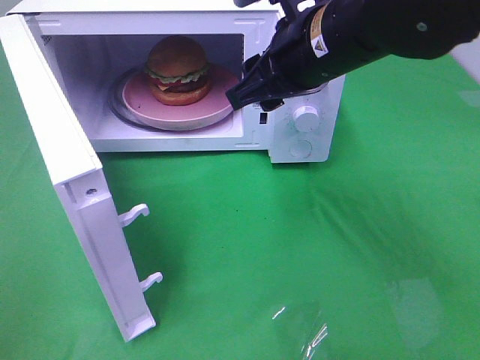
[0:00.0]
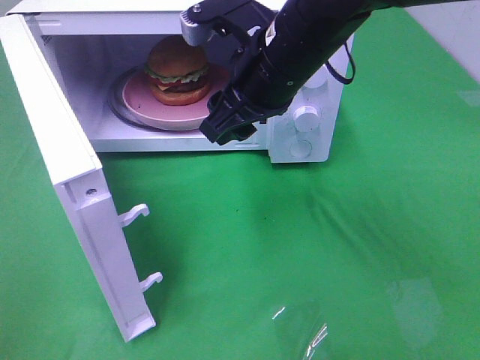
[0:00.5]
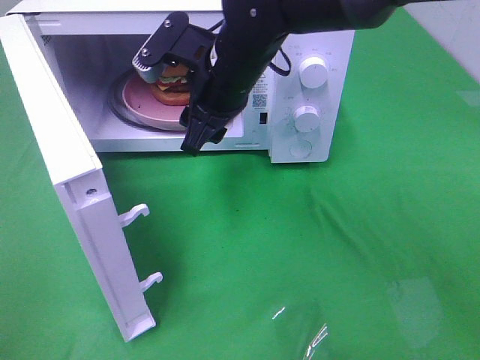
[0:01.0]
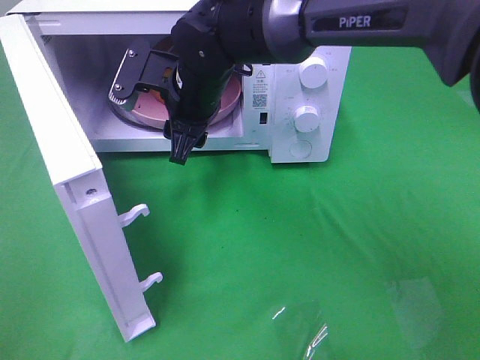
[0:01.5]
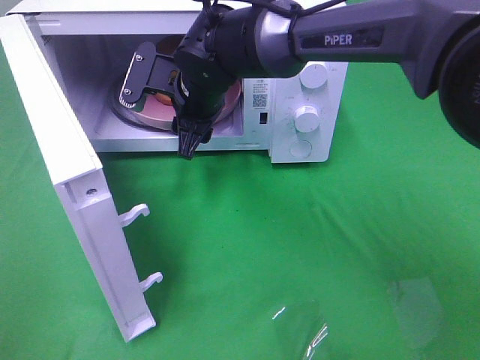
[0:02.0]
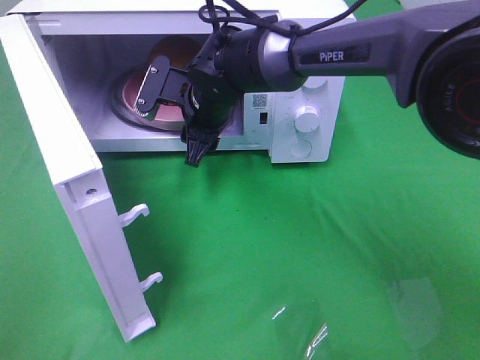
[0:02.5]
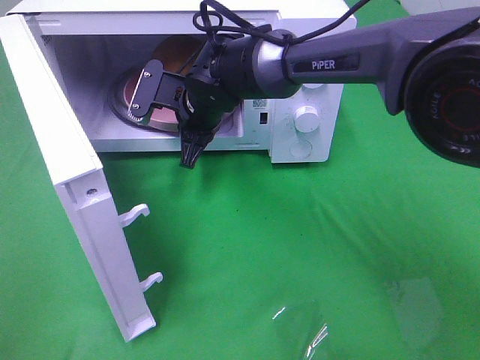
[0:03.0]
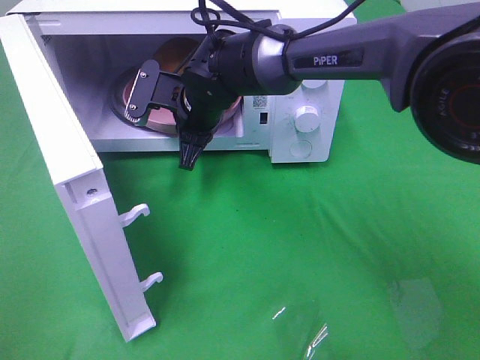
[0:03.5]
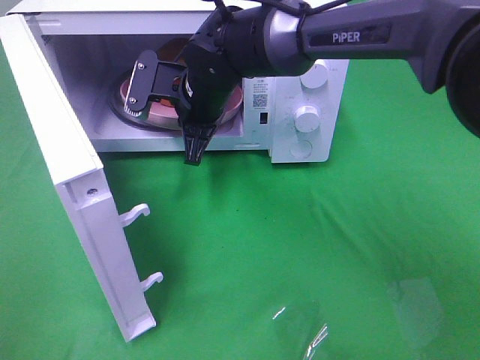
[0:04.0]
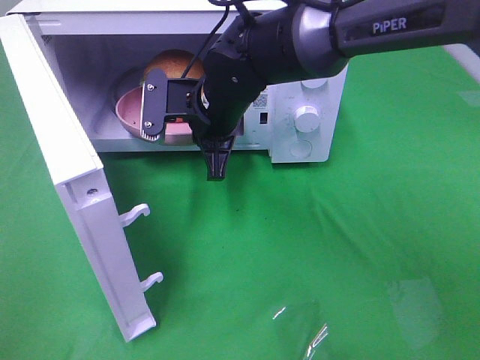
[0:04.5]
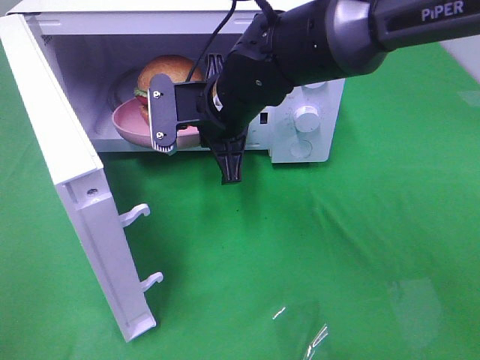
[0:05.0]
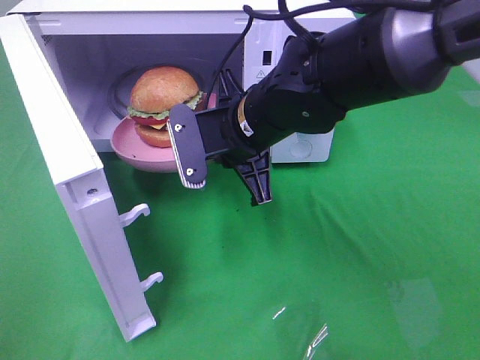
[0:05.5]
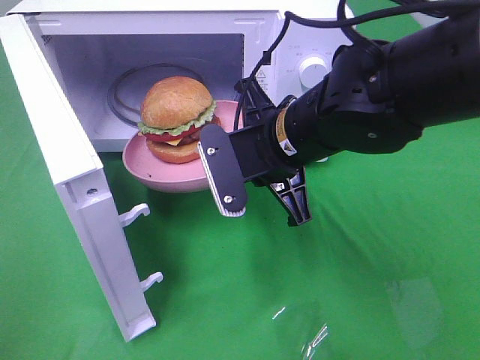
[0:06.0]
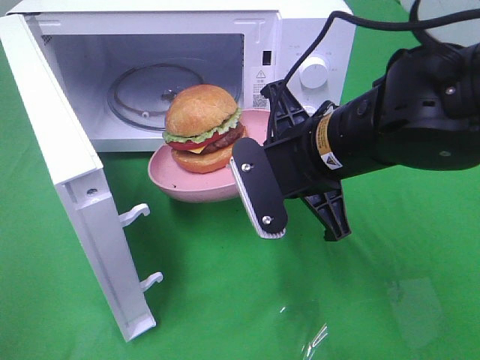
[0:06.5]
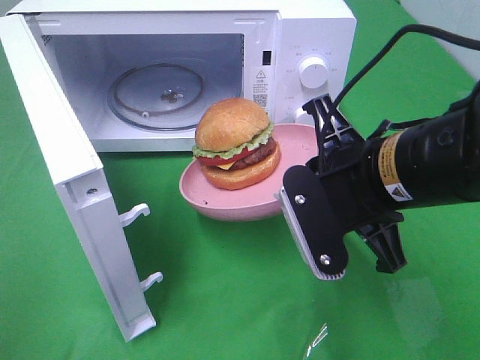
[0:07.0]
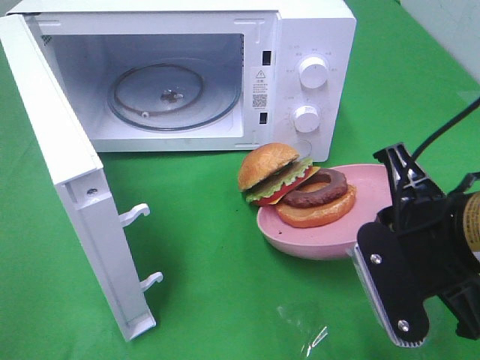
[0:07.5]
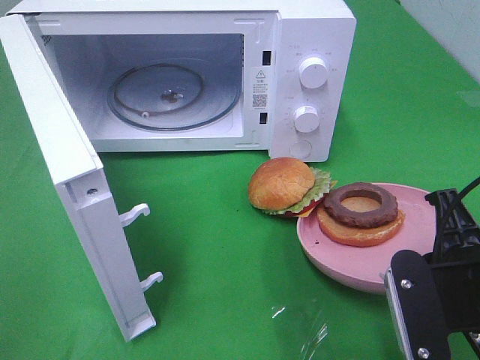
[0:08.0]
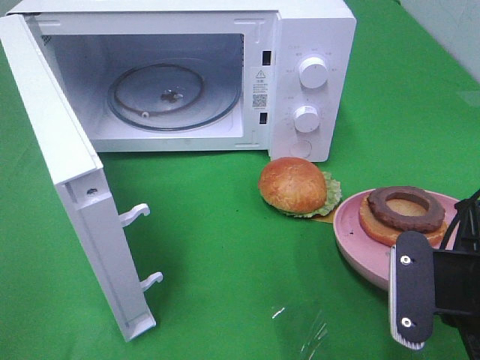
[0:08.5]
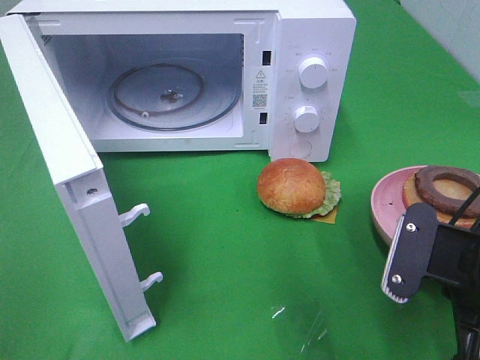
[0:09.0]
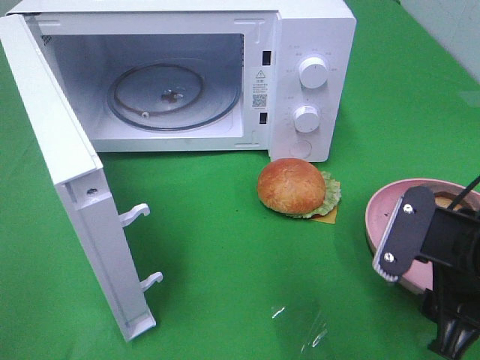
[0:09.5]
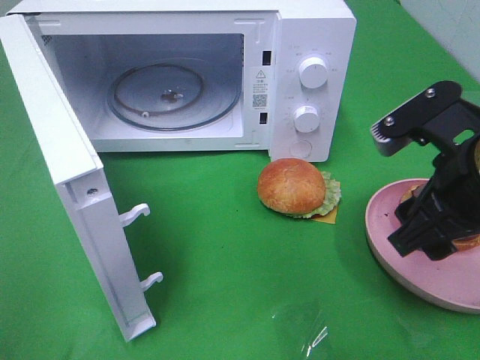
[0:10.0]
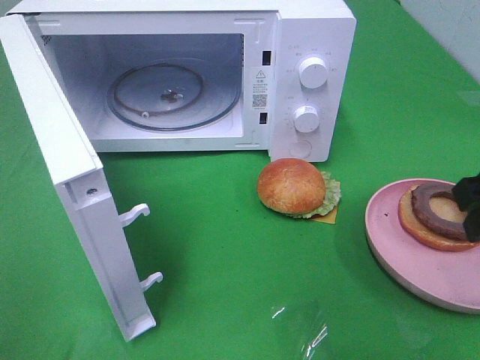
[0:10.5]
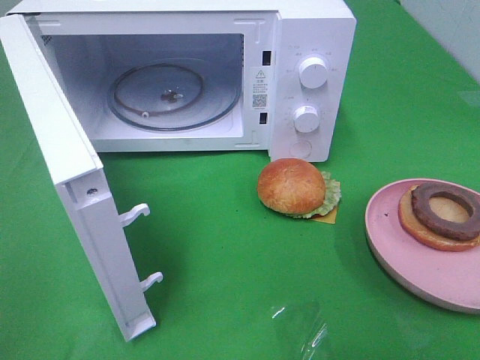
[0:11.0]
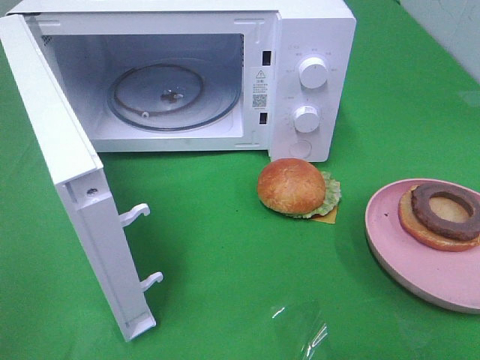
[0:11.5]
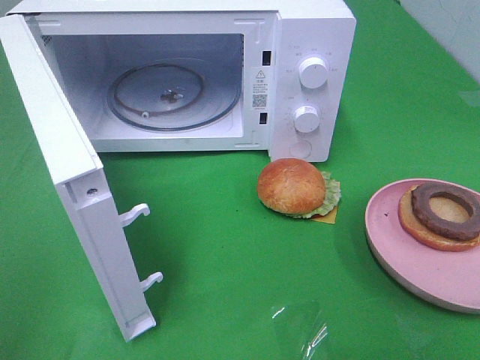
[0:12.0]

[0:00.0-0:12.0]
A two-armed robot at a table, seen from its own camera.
Task of the whole recording: Heat the burger.
Step, 0:00.0 to 0:03.5: Right hand: grab the plate with the hamburger.
Step, 0:04.0 to 0:09.5: Right hand: place the plate on the table.
0:00.0 to 0:02.0: The right gripper is displaced to the left, downward and forward by about 20 cm.
0:02.0 to 0:04.0: The right gripper closes its fingers.
0:04.0 to 0:06.0: The right gripper shifts some 15 cm backward and to the right.
0:06.0 to 0:08.0: The right gripper is displaced to the right and backward by some 20 cm.
0:08.0 to 0:10.0: The right gripper is displaced forward and upward by roughly 10 cm, and opens.
0:10.0 to 0:12.0: The right gripper moves backward and to the right, some 20 cm.

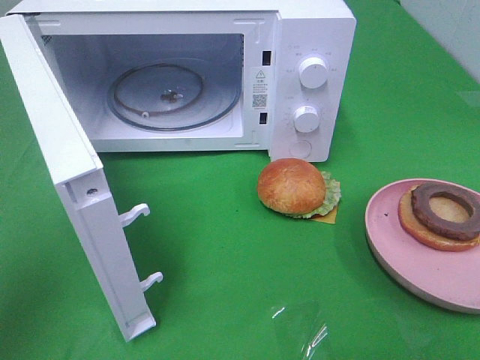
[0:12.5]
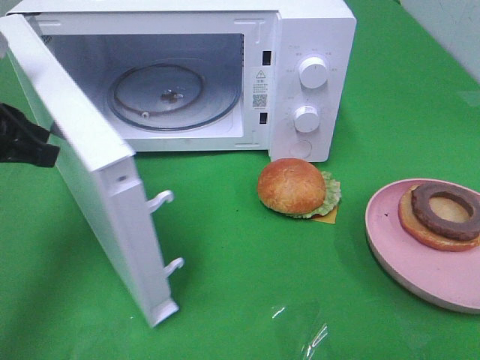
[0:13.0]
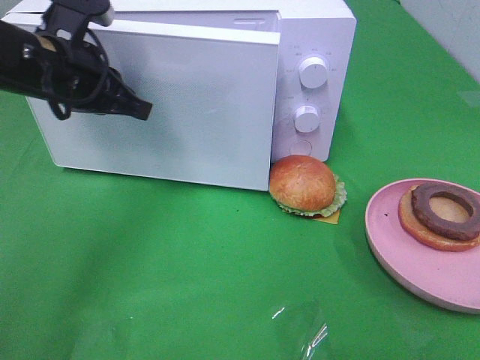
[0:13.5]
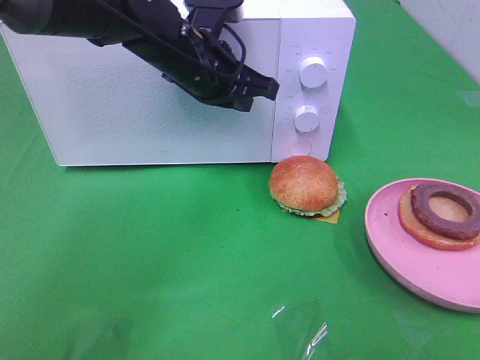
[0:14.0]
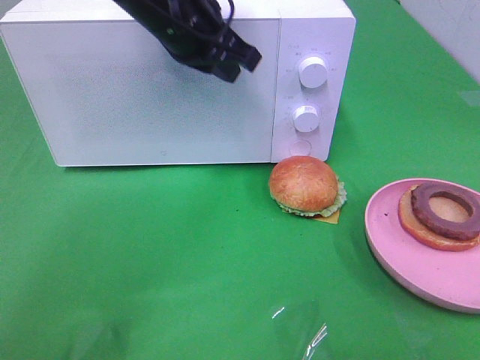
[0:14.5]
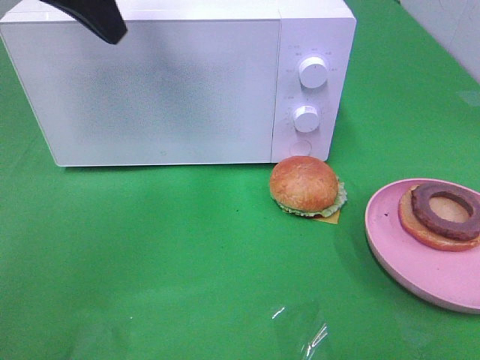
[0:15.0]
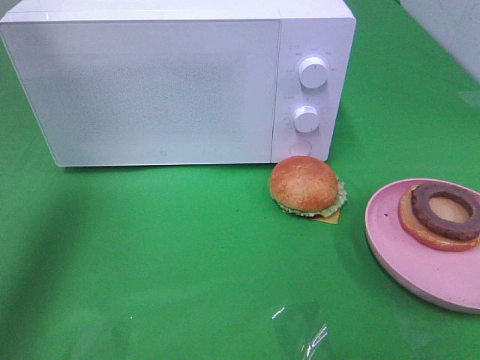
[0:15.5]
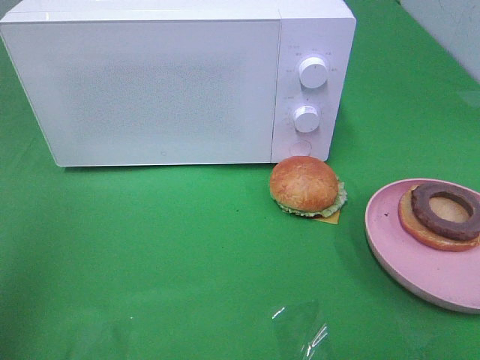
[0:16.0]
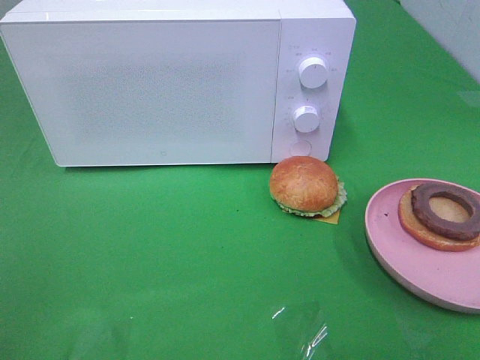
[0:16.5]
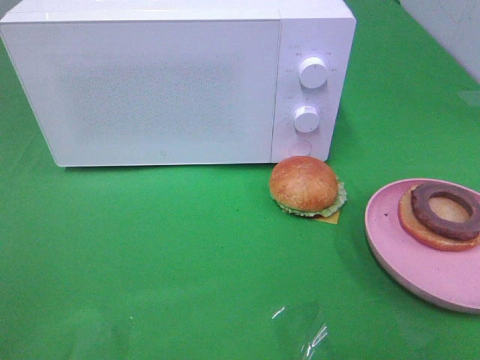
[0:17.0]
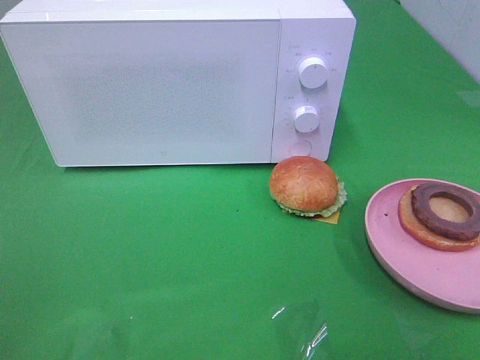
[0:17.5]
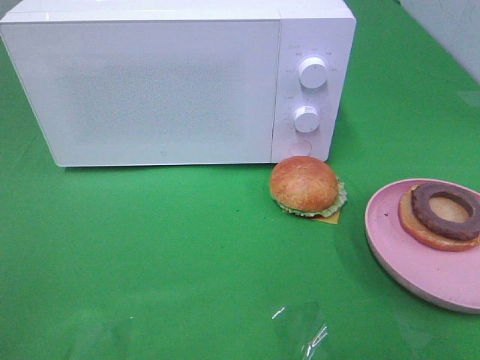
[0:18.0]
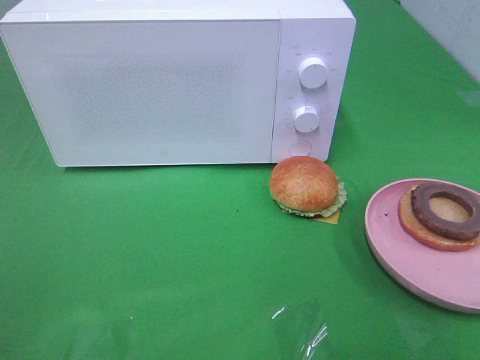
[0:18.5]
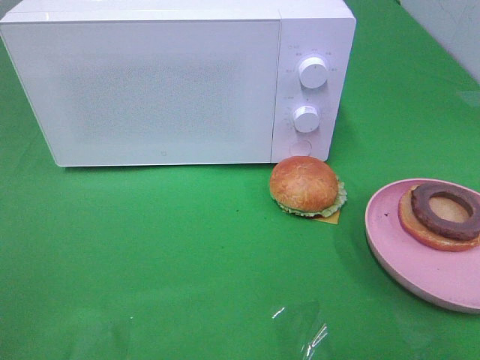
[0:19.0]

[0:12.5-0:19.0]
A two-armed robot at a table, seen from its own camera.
Task of the whole recording: Heat the burger.
Step, 0:12.5 to 0:14.5: Left hand: close the microwave door.
0:12.5 to 0:14.5: The left gripper shifts about 30 cm to the right and forward.
0:14.5 to 0:17.0: The left gripper is displaced backward and to the left by approximately 50 cm.
